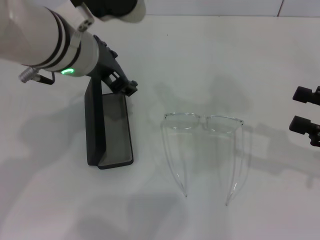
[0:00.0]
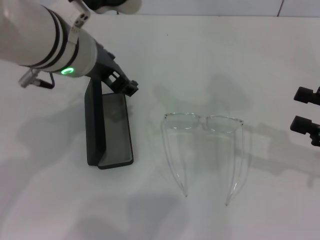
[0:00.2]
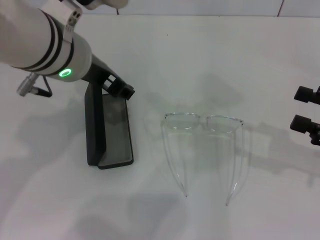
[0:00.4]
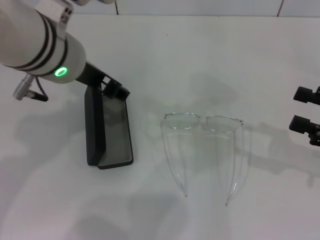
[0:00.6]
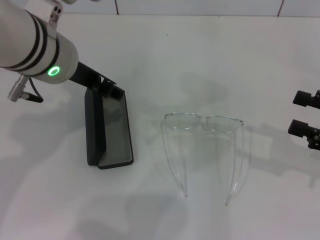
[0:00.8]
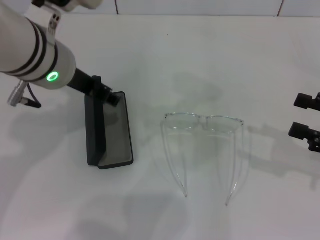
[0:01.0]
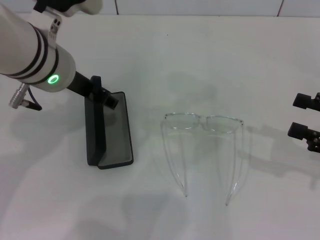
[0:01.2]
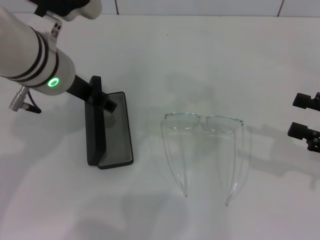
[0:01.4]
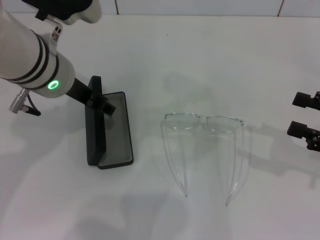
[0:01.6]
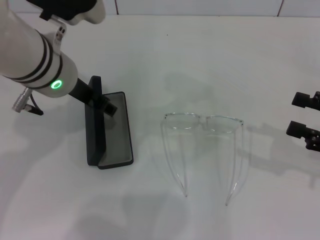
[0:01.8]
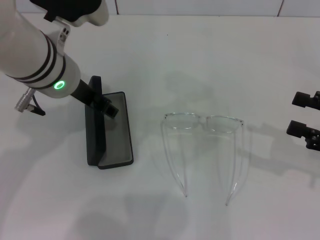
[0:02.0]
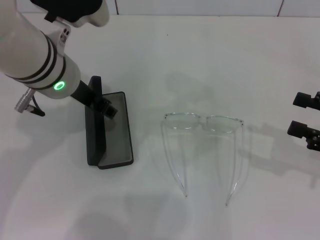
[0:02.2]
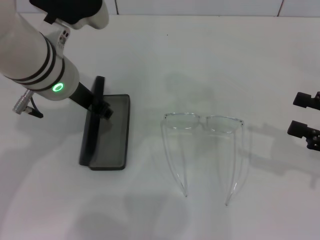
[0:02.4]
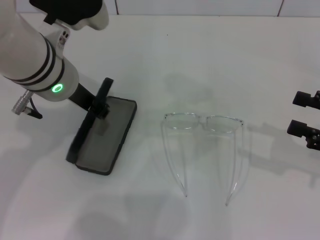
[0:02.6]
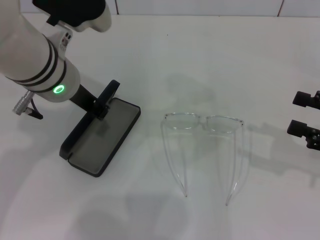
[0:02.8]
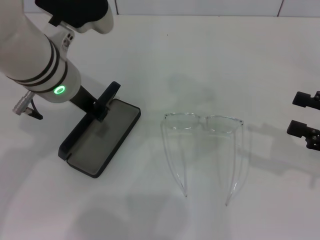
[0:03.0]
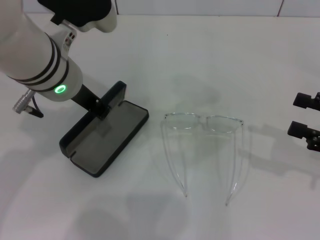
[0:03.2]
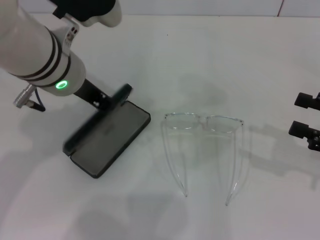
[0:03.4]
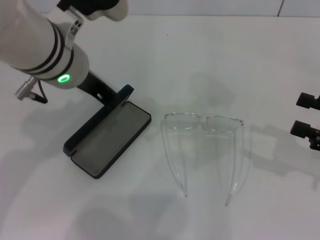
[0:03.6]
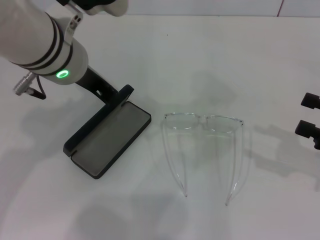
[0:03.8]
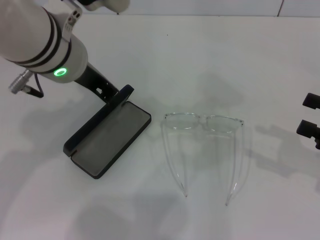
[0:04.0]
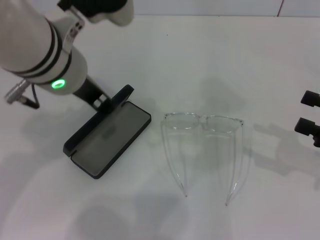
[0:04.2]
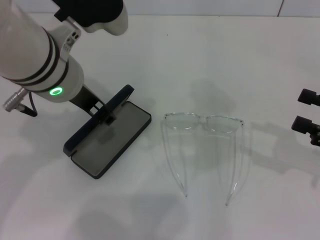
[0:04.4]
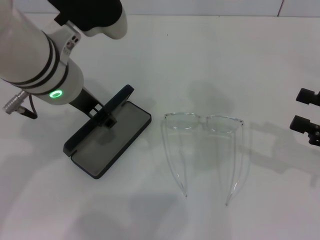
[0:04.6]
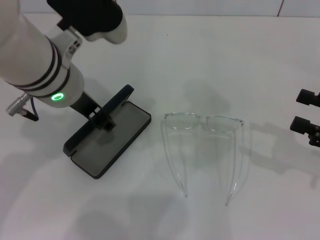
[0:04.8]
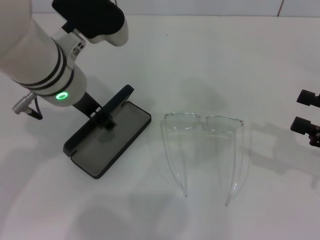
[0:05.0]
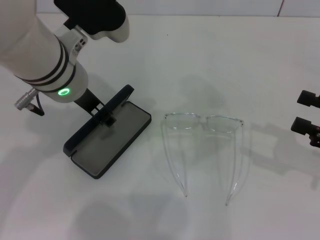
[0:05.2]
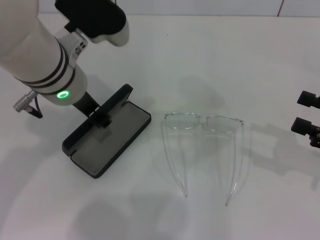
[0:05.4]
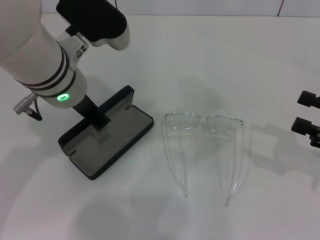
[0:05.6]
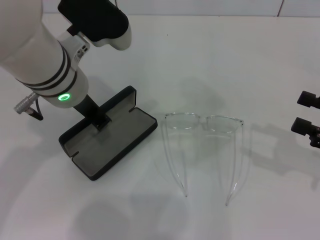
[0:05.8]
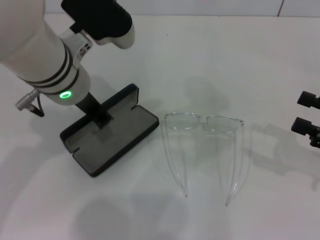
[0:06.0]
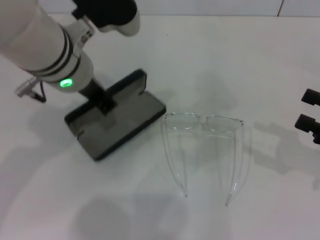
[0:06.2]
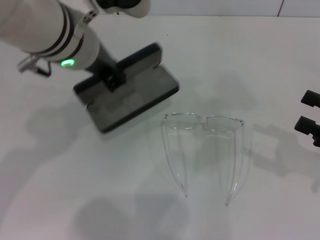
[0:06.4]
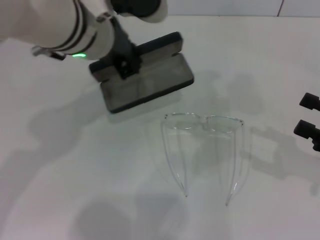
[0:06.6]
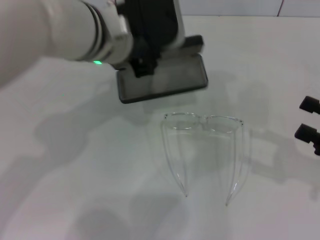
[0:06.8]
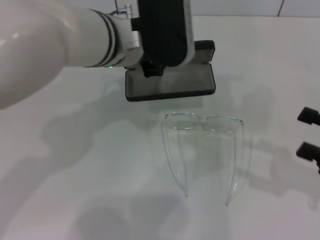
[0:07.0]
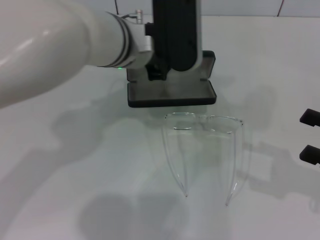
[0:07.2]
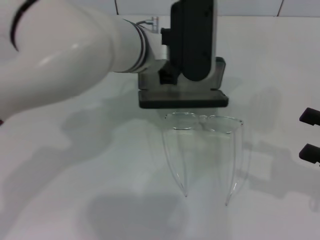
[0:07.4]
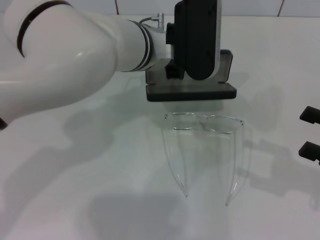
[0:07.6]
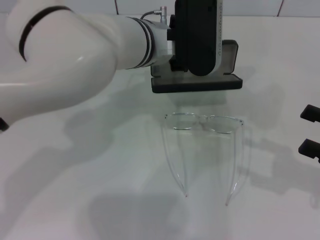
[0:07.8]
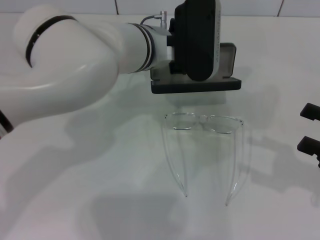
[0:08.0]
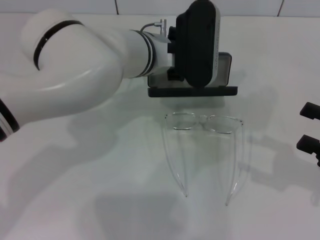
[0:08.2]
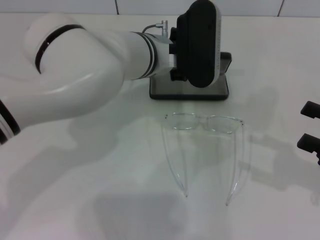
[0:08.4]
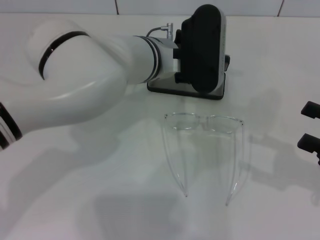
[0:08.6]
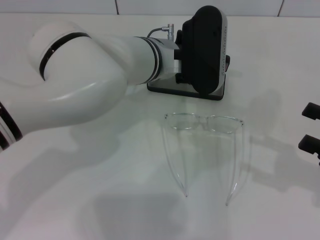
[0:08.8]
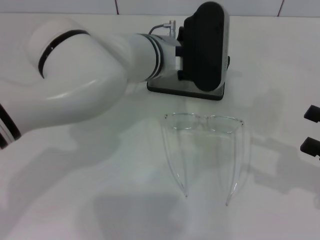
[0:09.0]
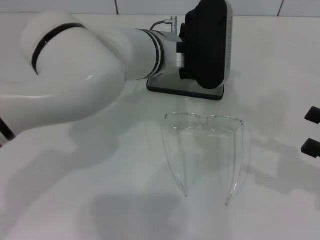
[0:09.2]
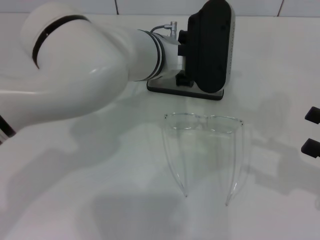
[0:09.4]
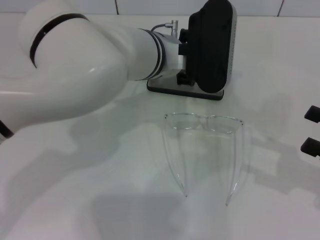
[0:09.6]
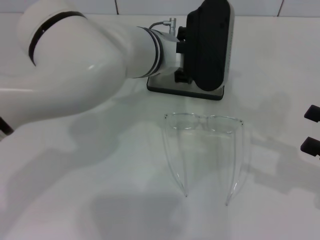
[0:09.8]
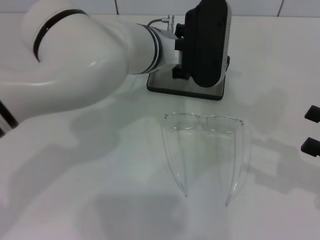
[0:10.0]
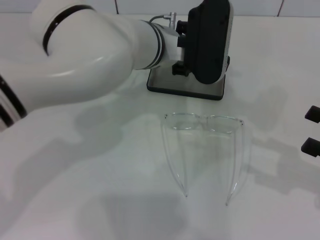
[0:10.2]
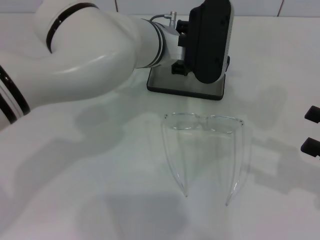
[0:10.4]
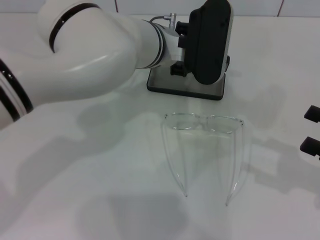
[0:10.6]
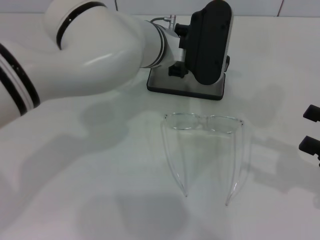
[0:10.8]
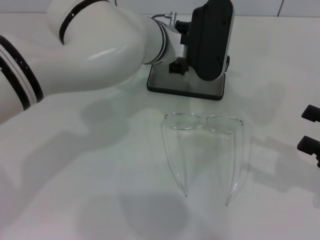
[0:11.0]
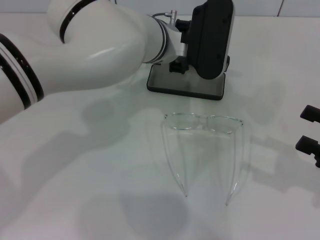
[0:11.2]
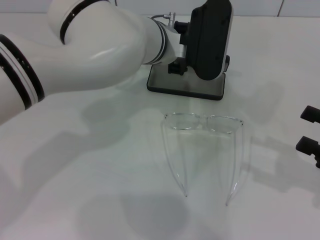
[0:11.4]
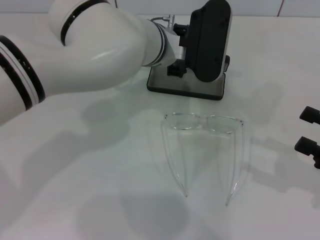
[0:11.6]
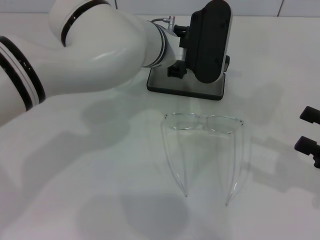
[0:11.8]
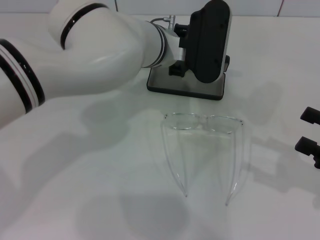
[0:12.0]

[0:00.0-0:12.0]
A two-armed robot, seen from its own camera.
Step, 0:00.0 to 0:06.0: Grab the glasses case with your left hand.
0:01.6 to 0:03.0: The left gripper closes its fingers.
0:03.0 to 0:04.4: The grippers make only small movements.
0:04.4 to 0:06.0: The left gripper opens, then closes again.
0:06.0 to 0:07.6: The left gripper heads to the right, covering approximately 10 cm.
0:07.6 to 0:09.0: There are only small adjustments of the grippers.
0:09.0 to 0:10.4: The left gripper opens up.
0:10.4 to 0:12.0: The grippers make only small movements.

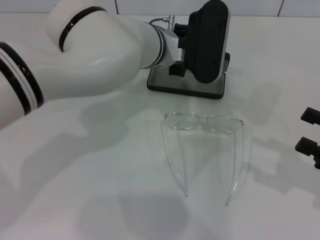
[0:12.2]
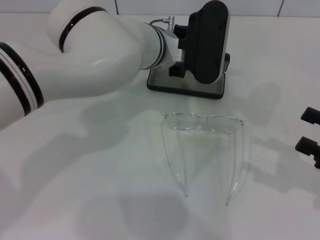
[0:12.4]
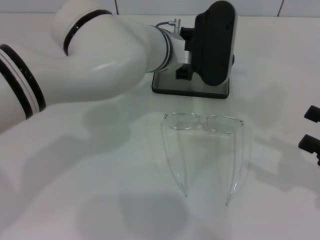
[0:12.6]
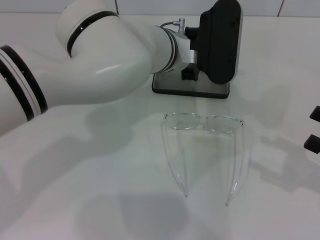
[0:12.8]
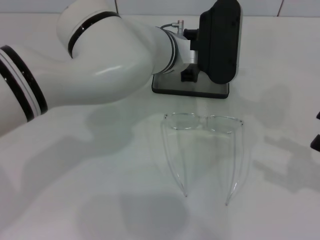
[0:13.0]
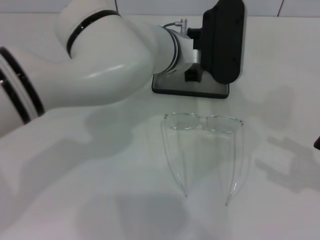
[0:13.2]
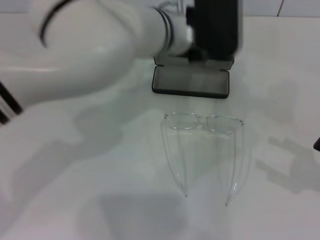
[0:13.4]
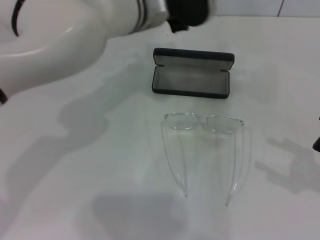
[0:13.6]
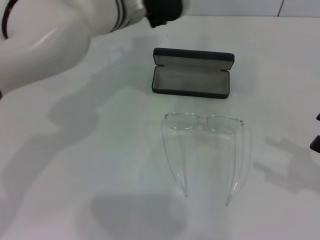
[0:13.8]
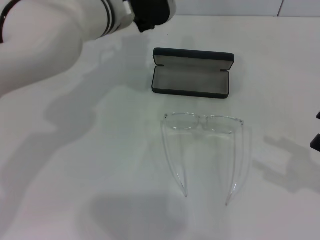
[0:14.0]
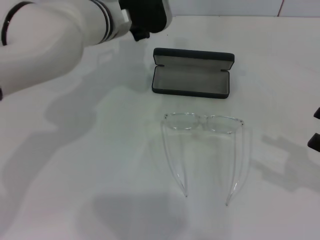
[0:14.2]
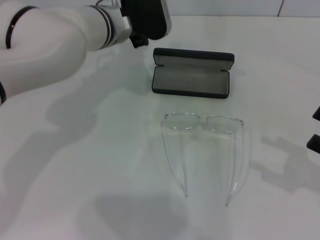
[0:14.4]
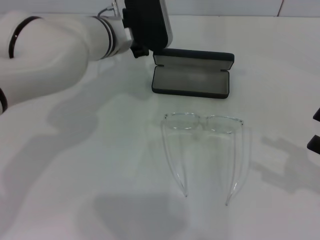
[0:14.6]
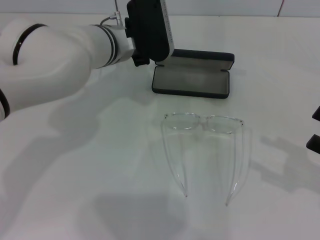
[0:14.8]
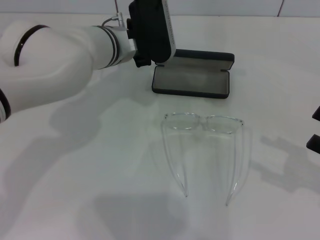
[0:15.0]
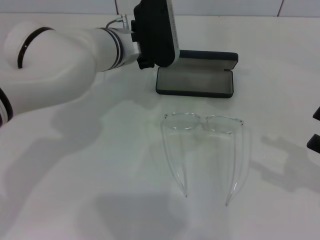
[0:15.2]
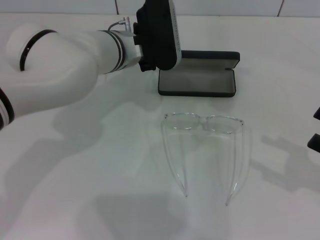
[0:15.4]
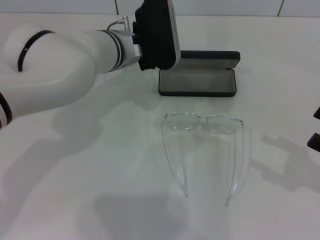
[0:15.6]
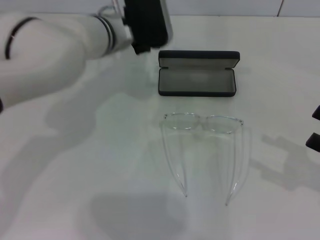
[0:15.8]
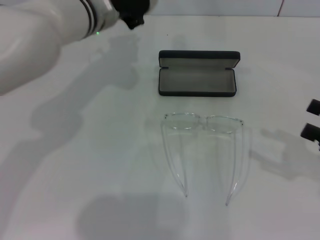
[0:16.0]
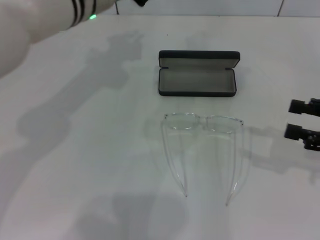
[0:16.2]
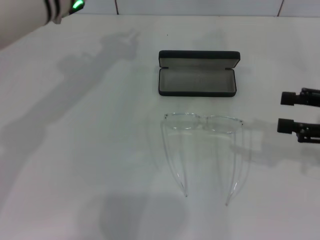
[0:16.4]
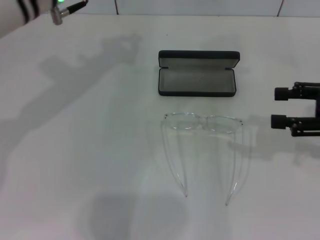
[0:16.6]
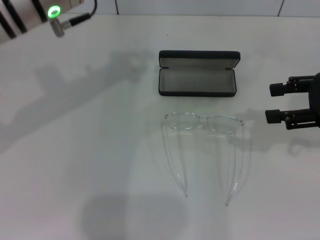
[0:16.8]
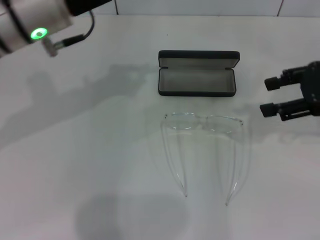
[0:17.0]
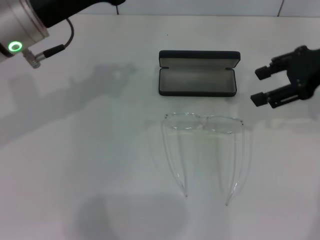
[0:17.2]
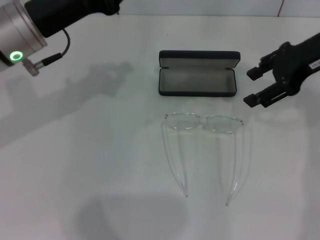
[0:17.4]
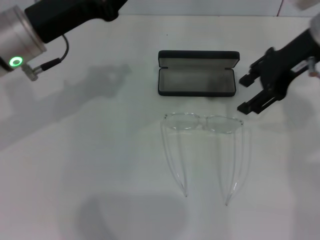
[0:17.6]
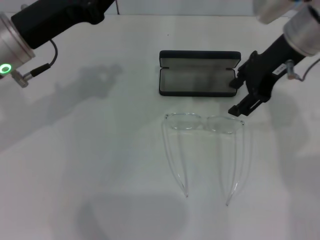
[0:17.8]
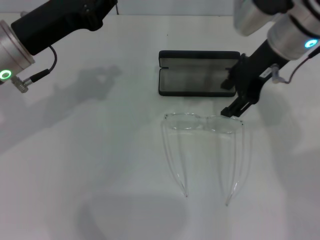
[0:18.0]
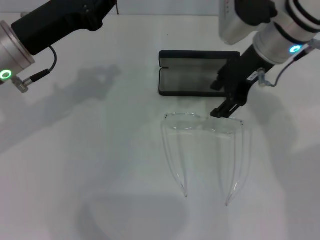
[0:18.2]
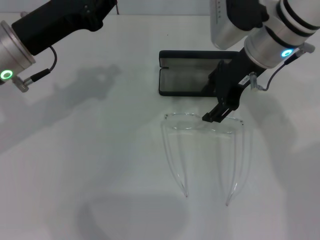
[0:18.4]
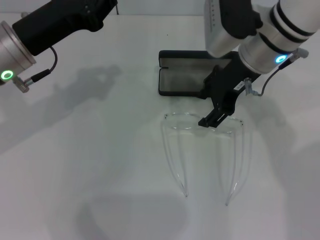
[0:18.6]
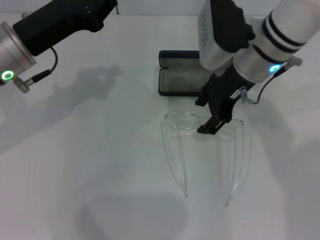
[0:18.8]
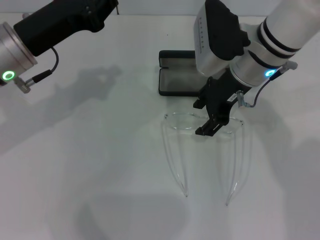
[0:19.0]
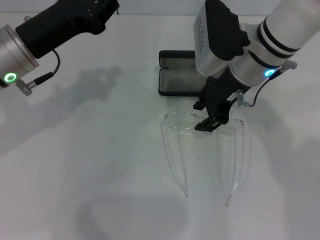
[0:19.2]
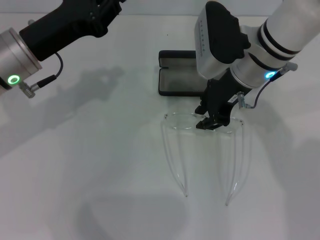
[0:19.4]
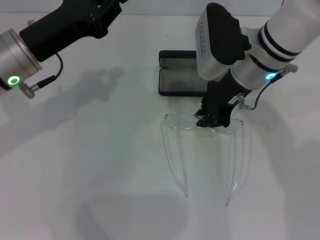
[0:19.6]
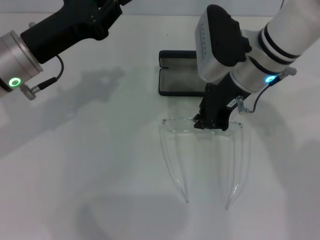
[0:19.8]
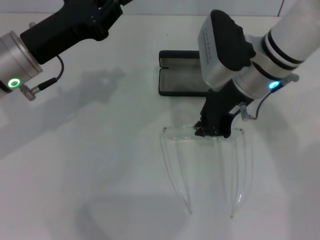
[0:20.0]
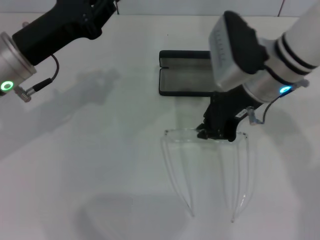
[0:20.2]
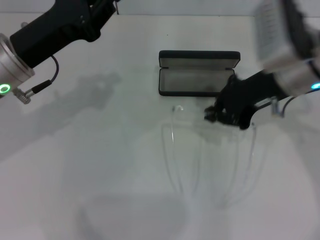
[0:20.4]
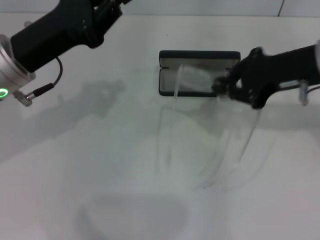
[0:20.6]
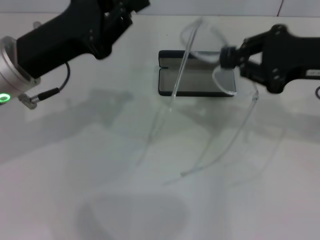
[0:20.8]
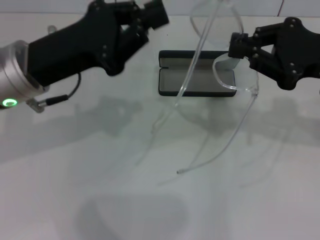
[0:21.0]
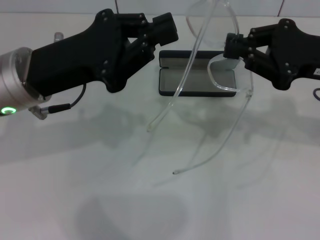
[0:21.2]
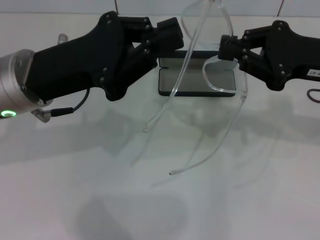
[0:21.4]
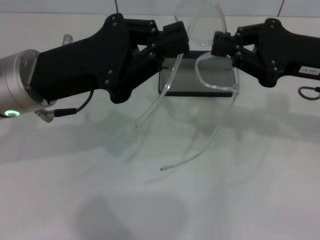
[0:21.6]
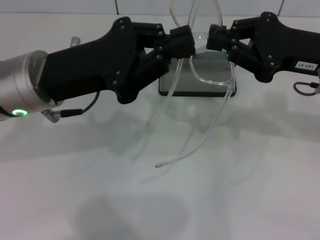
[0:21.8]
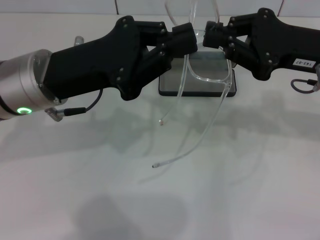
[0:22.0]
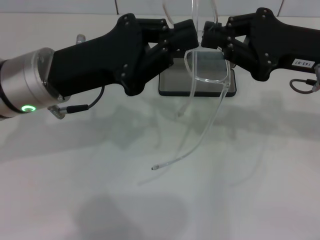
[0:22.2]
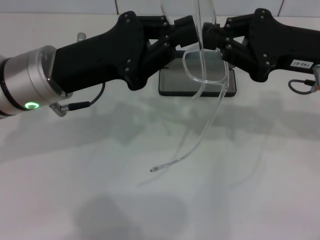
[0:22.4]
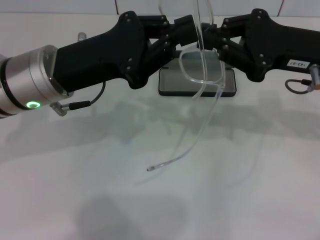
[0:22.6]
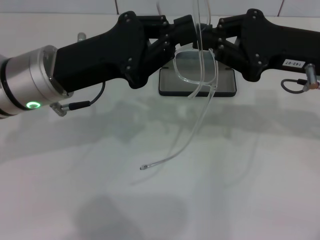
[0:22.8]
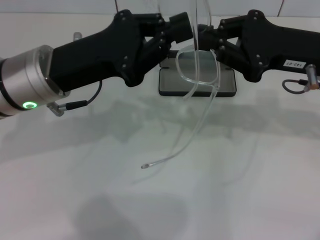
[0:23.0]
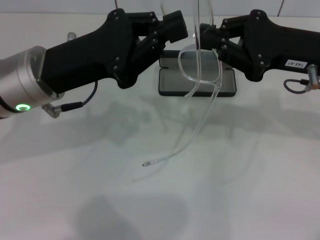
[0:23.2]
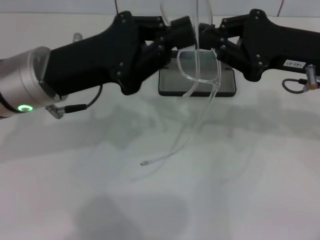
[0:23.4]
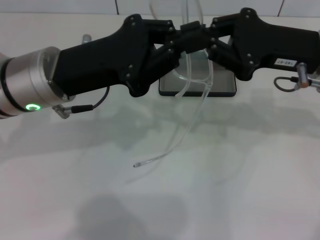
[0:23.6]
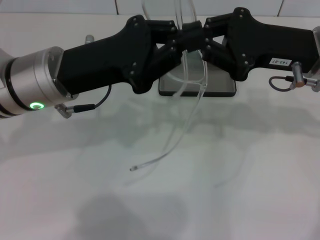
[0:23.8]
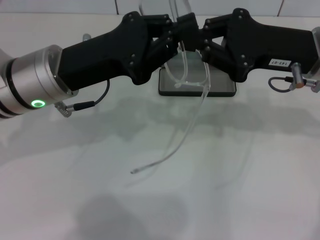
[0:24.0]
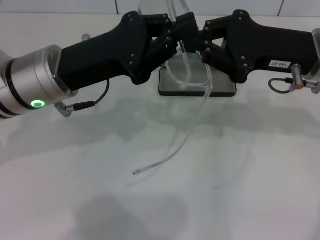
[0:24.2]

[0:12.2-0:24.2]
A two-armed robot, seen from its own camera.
Step, 0:13.4 to 0:19.6: Grab the eyeglass frame with your right hand.
0:12.2 to 0:13.8: The left gripper travels to the left by roughly 5 cm.
0:13.8 to 0:15.2: The left gripper is displaced downward by about 5 cm.
0:15.2 to 0:16.6: The right gripper travels forward and upward by approximately 10 cm. Meanwhile the left gripper is displaced upward and to the left by roughly 15 cm.
0:16.6 to 0:18.2: The right gripper shifts about 20 cm to the left and forward, while the left gripper shifts roughly 10 cm to the left and downward.
0:18.2 to 0:19.8: The right gripper closes its fingers.
0:19.8 to 0:21.2: The right gripper shifts approximately 15 cm to the right and backward. Meanwhile the left gripper changes place by about 5 cm.
0:21.2 to 0:24.2: There are only small adjustments of the grippers.
